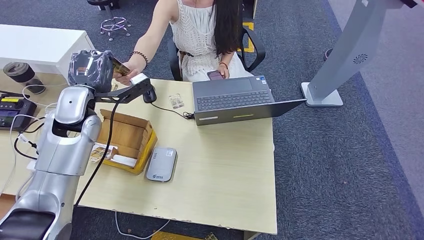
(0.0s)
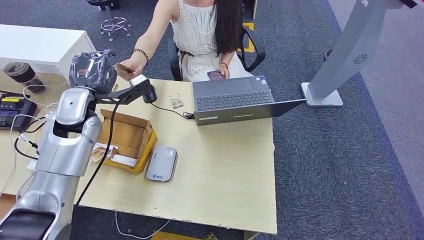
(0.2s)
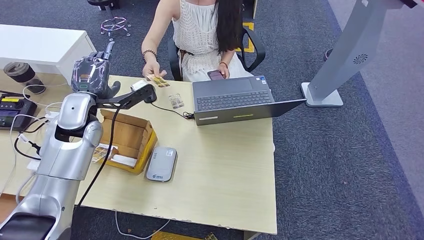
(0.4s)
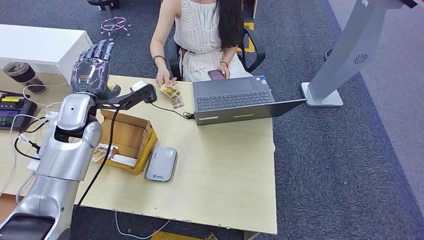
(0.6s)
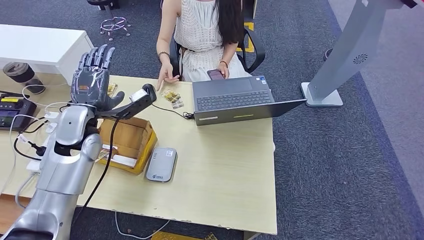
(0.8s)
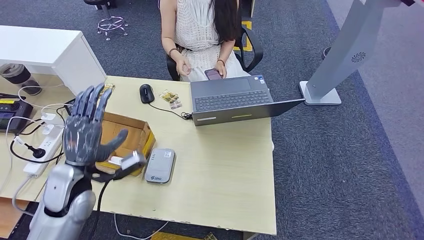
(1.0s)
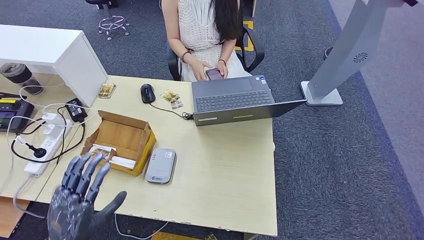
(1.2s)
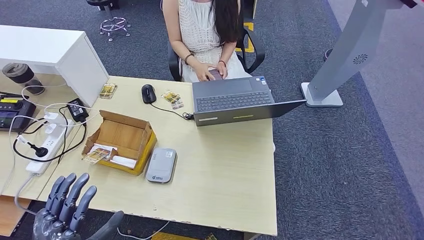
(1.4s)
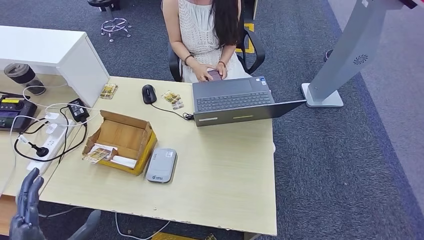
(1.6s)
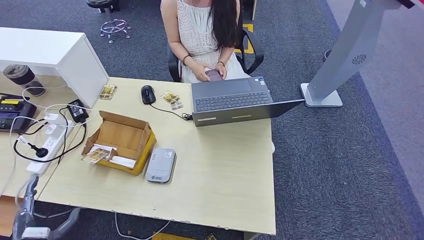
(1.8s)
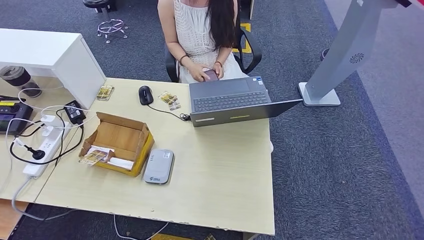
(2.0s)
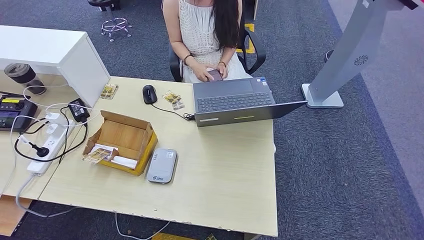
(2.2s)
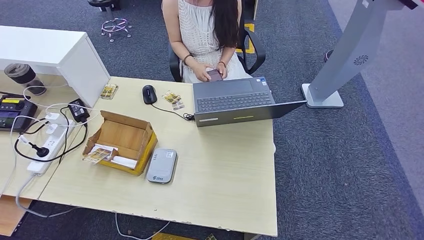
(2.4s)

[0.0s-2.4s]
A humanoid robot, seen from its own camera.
Step, 0.0s to 2.4s: Hand the room key to the person.
1.2s to 2.4s: The left hand heads downward and backward, covering roughly 30 cm.
